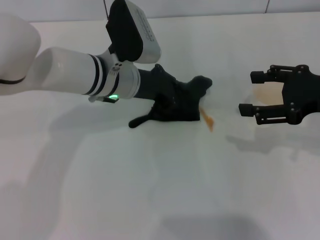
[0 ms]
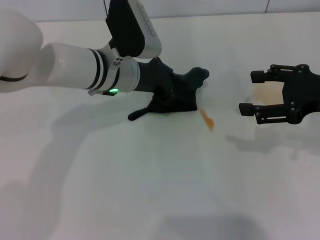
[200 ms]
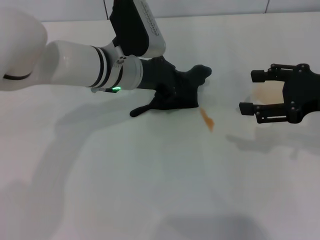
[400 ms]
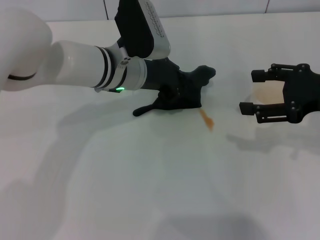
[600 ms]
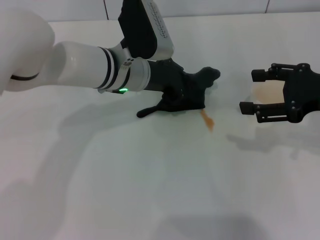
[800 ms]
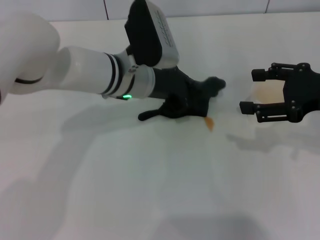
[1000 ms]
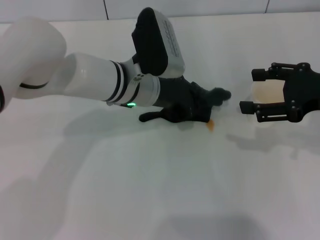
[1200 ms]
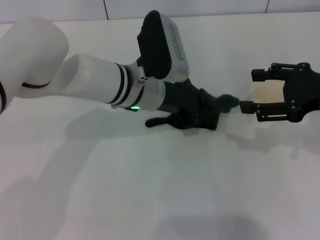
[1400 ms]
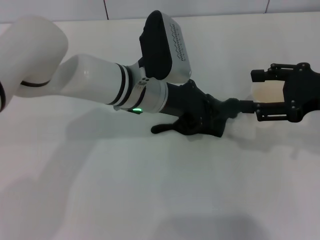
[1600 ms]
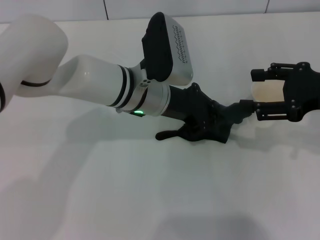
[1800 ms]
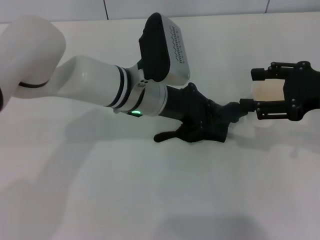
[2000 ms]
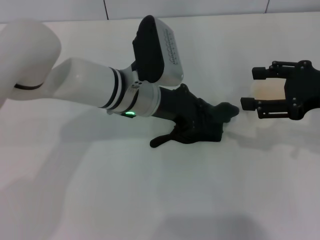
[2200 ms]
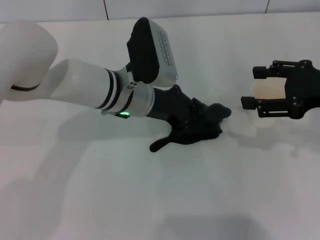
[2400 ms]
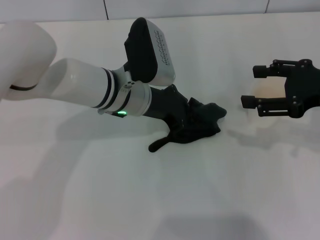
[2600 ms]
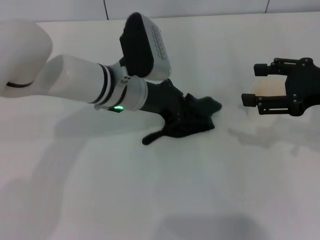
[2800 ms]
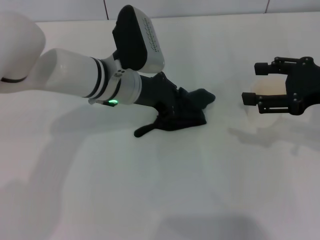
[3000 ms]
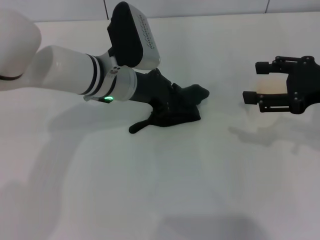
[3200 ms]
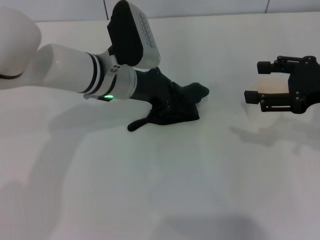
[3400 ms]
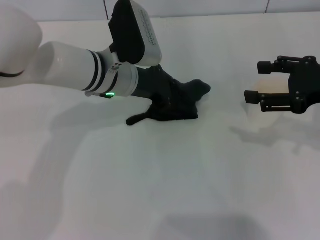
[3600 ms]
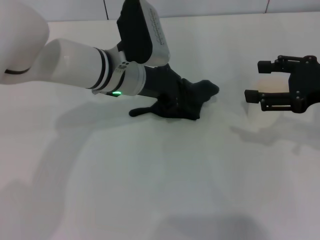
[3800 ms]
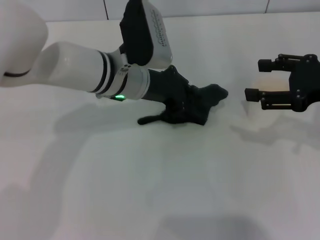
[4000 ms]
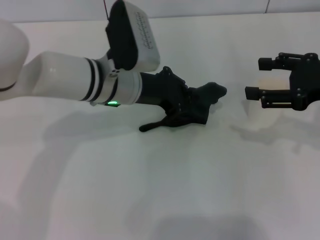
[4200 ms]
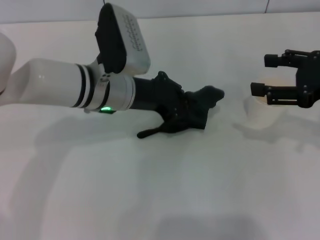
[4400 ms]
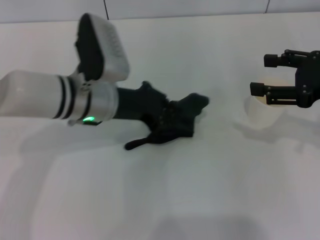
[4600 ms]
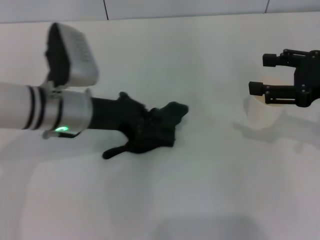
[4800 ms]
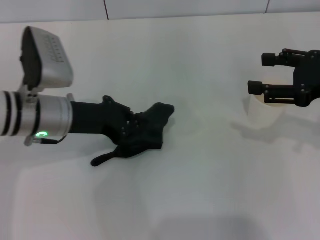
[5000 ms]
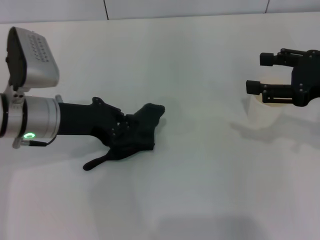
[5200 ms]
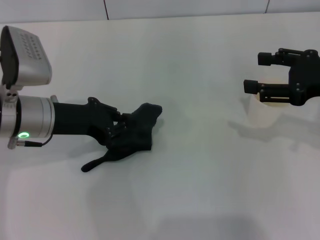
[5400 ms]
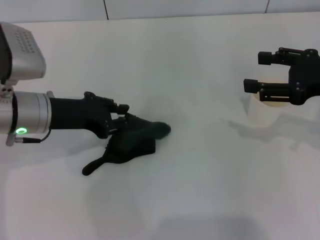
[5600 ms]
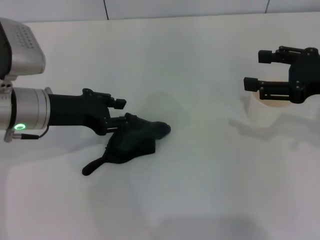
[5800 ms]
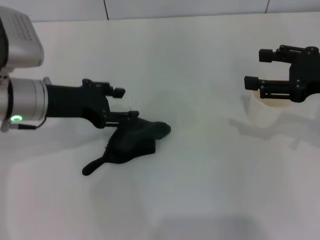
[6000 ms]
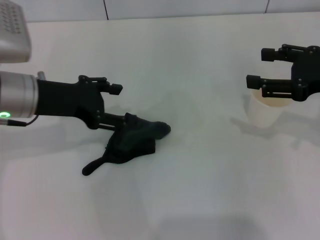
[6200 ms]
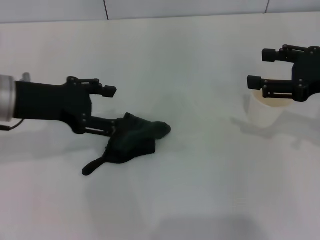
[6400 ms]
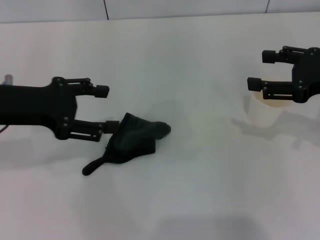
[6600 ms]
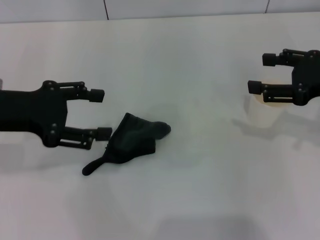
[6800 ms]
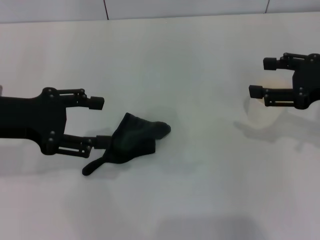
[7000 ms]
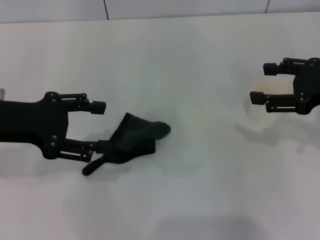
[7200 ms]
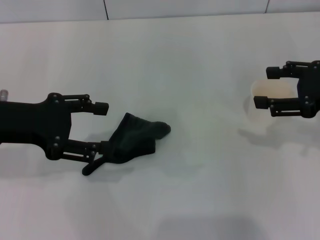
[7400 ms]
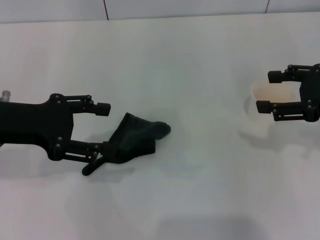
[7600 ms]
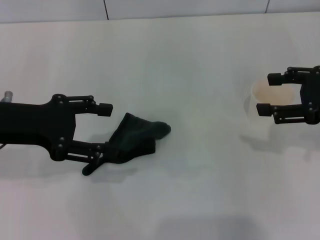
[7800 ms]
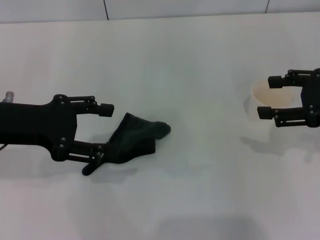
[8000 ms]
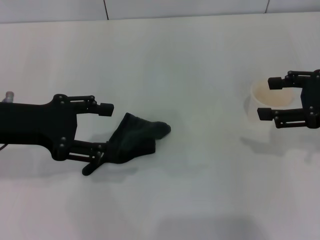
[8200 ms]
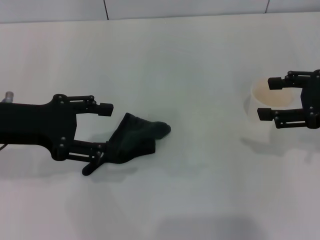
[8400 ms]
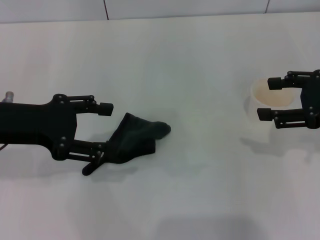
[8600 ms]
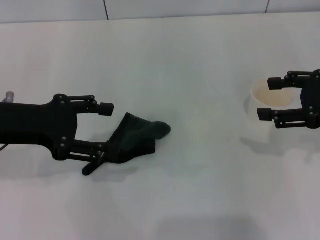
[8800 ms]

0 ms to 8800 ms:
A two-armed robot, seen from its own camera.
Step, 0 ms to 5000 ms: Wipe the stains off the table with the left gripper.
Step, 5200 ms to 6000 ms: Place the rag on the table with the left gripper.
0 ms to 4400 ms: The grippers make only small movements.
4400 ms to 5800 ms: The left gripper shifts about 10 cm to the left.
5800 ms to 7400 ms: The left gripper goes approximately 10 cm upward and to the left, and opens.
7400 ms to 8800 ms: Both grippers stay put.
